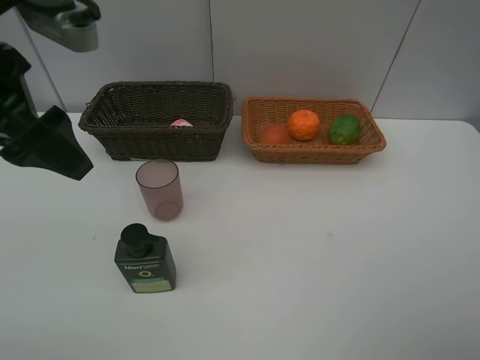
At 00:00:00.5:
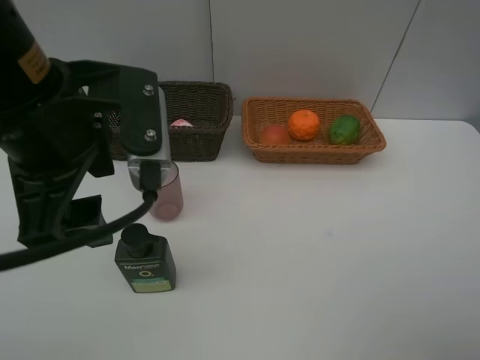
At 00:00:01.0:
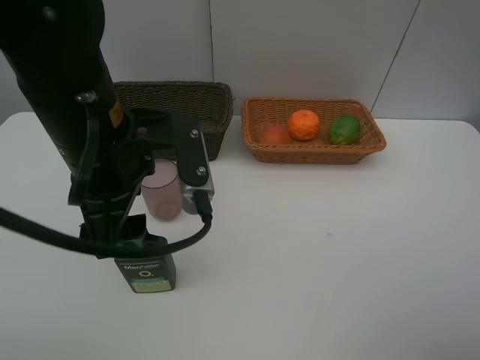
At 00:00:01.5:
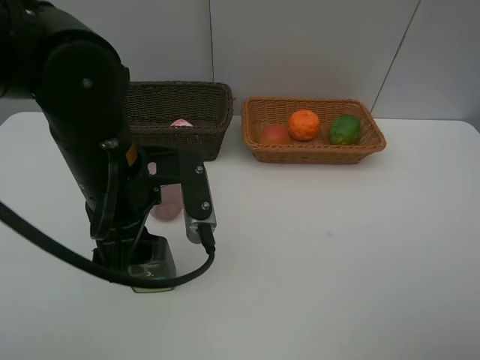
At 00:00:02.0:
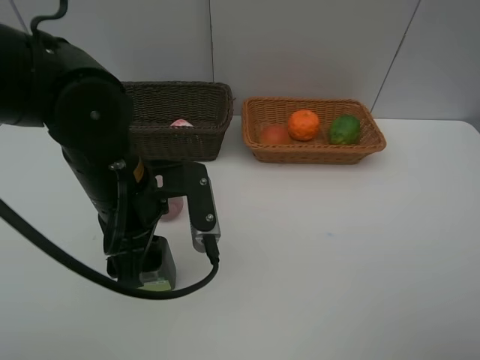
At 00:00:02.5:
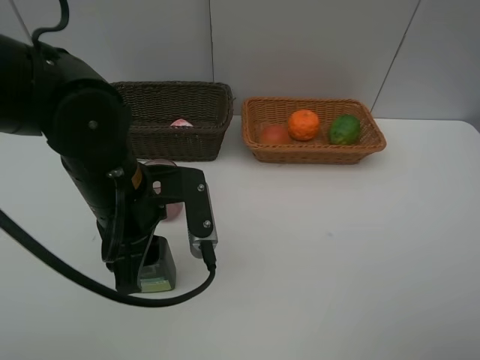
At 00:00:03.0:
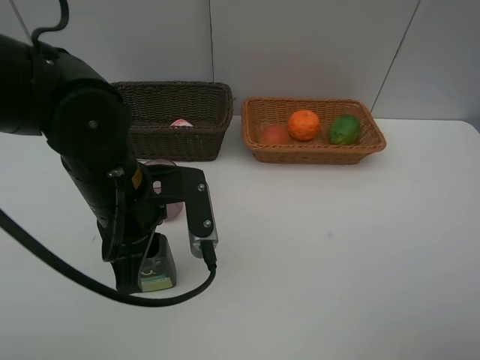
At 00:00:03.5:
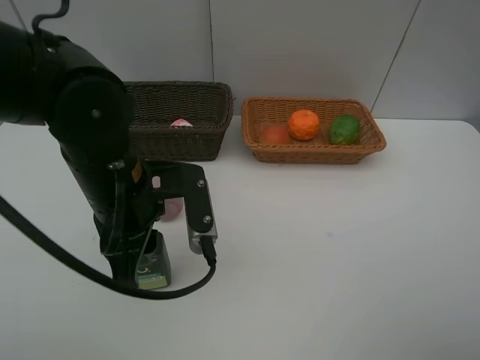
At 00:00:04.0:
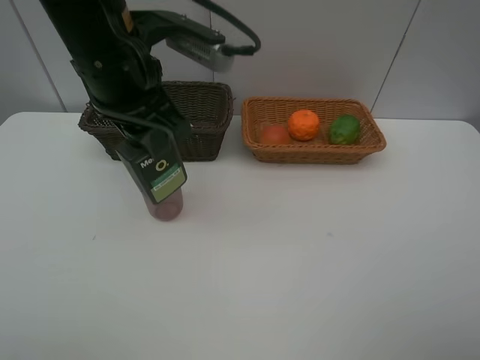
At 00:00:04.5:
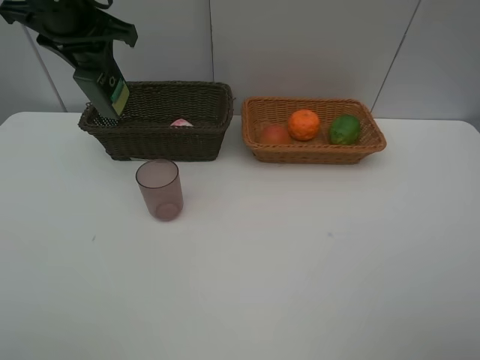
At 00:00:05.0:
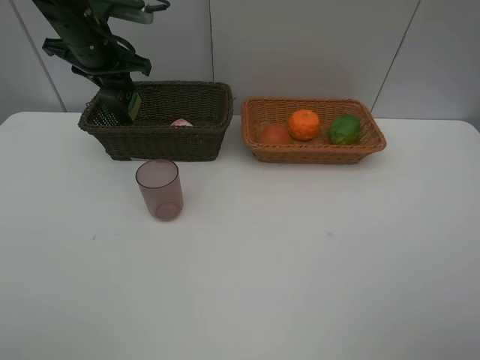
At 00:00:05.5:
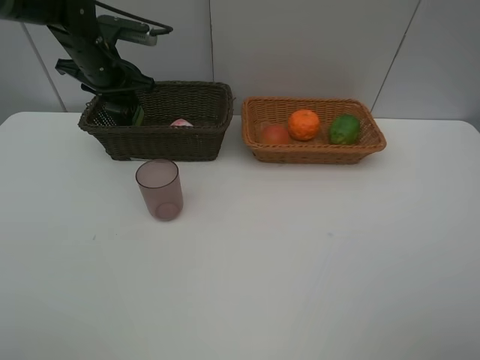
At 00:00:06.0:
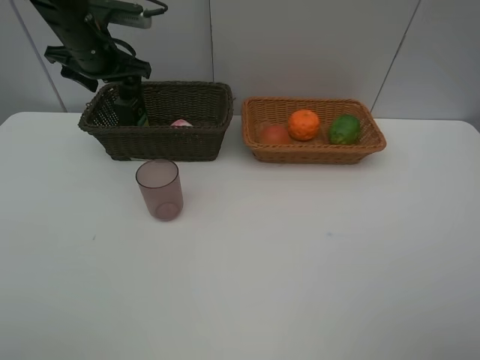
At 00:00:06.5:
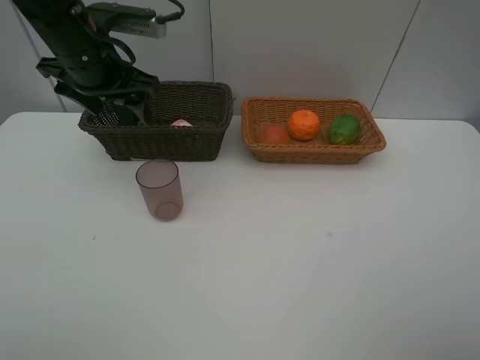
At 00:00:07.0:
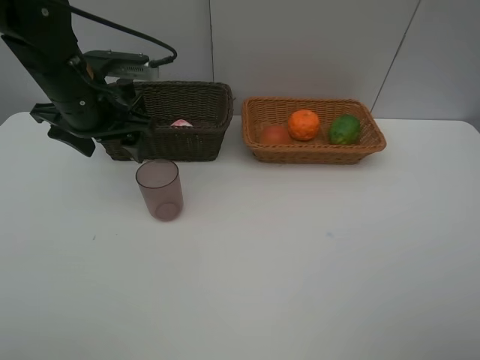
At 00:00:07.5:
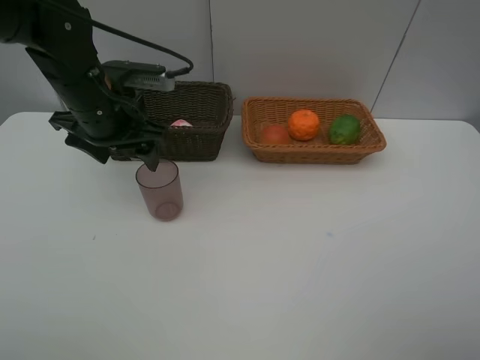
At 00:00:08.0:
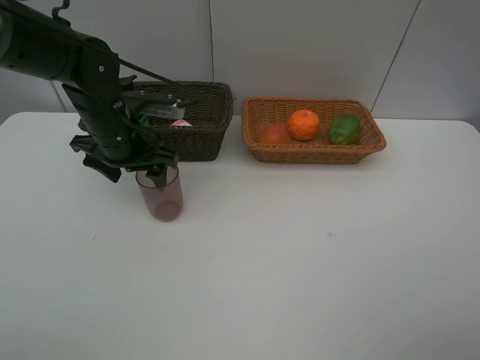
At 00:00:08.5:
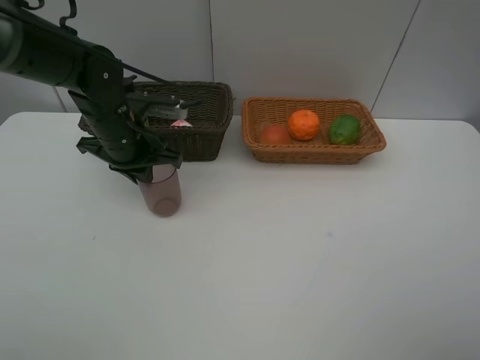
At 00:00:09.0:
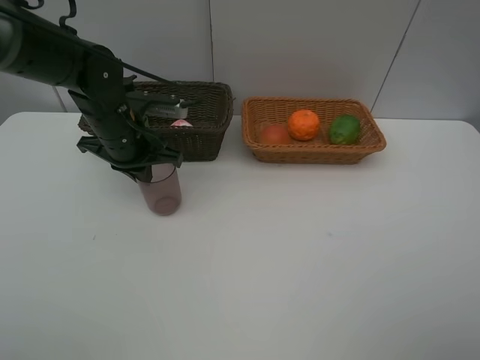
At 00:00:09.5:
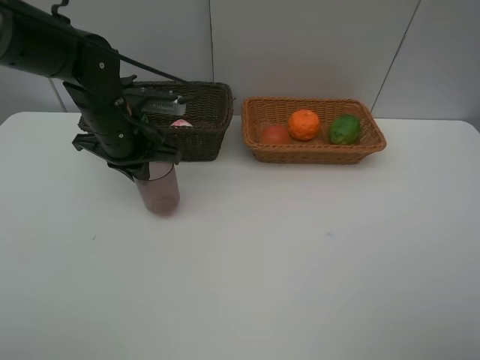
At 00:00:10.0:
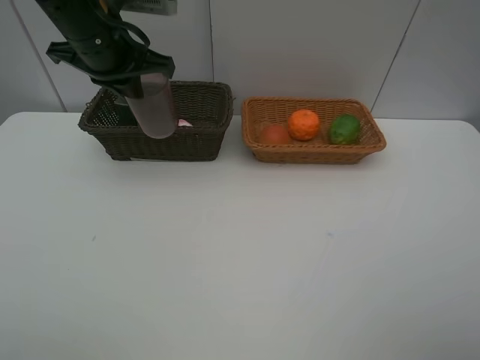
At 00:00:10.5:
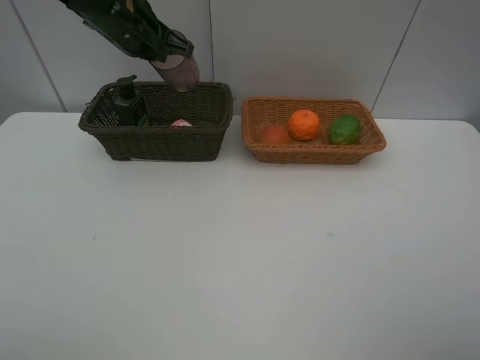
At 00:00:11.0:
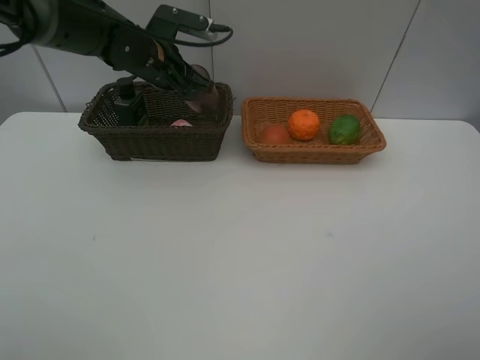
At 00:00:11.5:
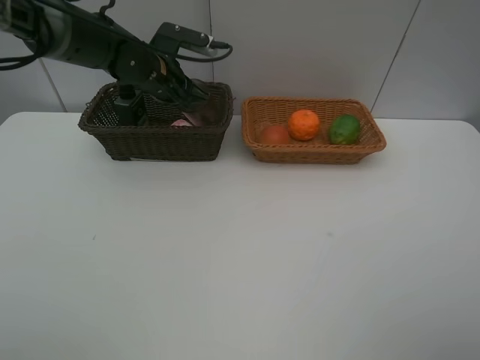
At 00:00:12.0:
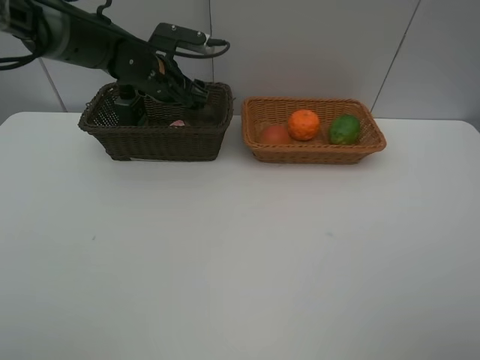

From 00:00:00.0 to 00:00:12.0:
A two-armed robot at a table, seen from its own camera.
Task of the whole recording: place multiple objects separately in different baskets.
From 00:00:00.0 to 00:00:02.0: The left gripper goes some 15 cm downward and to the right.
From 00:00:02.0 to 00:00:04.0: The left gripper moves upward and forward, about 15 cm, and closes its fingers.
From 00:00:04.0 to 00:00:06.0: The left gripper moves forward and to the left, about 20 cm, and opens its fingers.
From 00:00:06.0 to 00:00:08.0: The left gripper is displaced backward, downward and to the right by roughly 15 cm.
From 00:00:08.0 to 00:00:10.0: The left gripper is displaced upward by roughly 15 cm, and closes up.
From 00:00:10.0 to 00:00:12.0: The left gripper heads downward and forward, covering some 15 cm, and opens.

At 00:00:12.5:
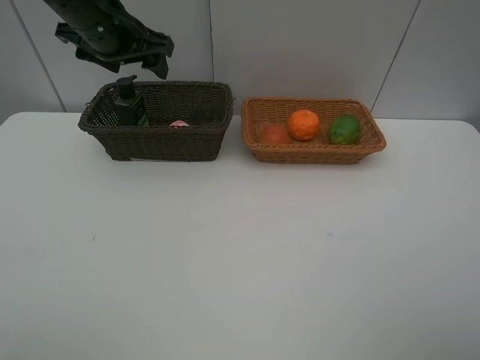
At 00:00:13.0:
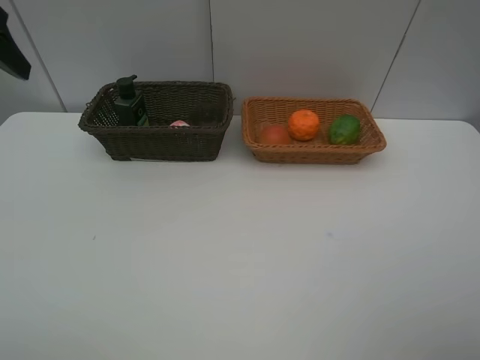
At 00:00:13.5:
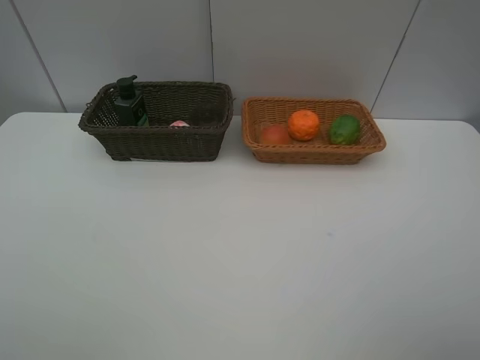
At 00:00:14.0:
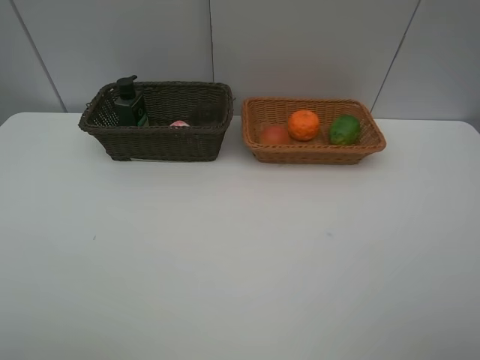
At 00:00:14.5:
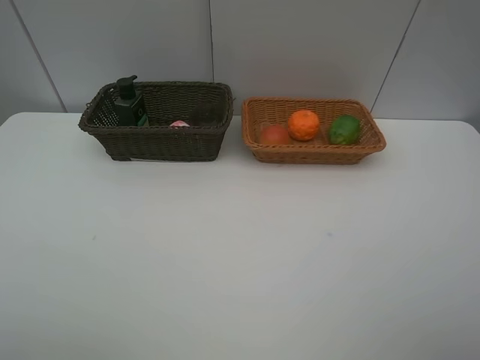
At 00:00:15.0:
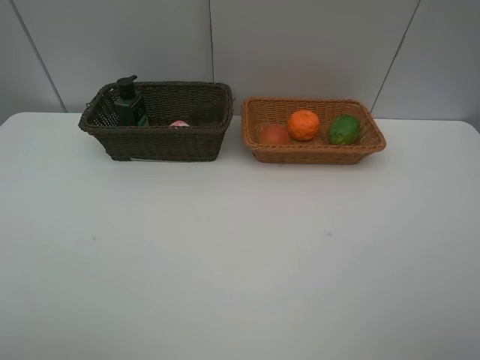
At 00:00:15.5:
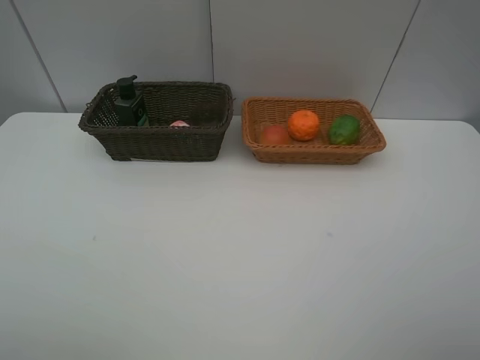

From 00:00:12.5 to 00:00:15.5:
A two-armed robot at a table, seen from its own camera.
Task of the whole recording: place multiple objects separately in different baskets.
From 00:00:12.5 to 00:00:14.0: The left gripper is displaced backward by roughly 40 cm.
From 00:00:14.0 to 00:00:15.5: Both grippers stay about where they are.
